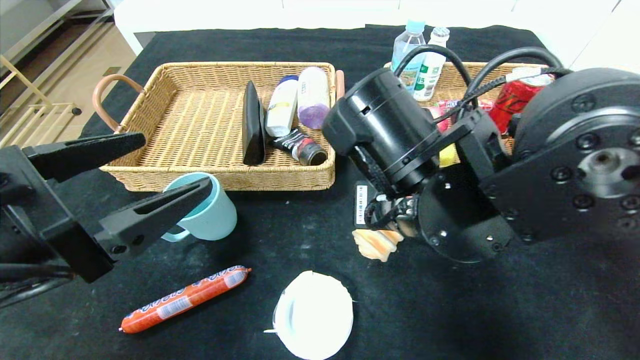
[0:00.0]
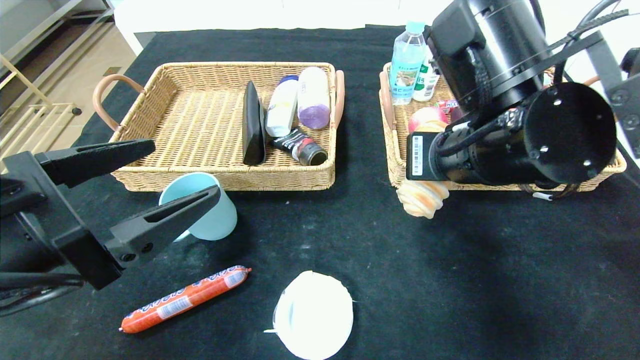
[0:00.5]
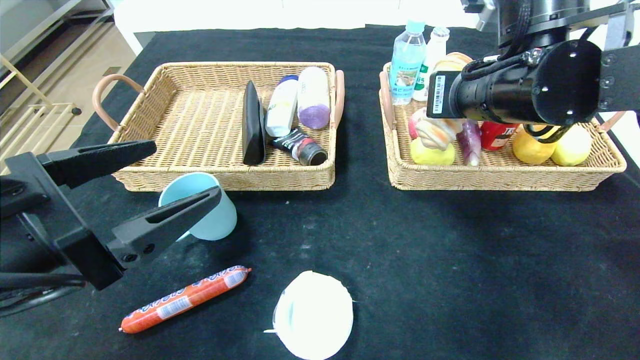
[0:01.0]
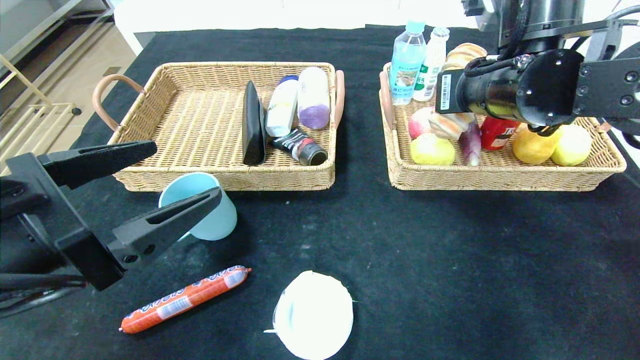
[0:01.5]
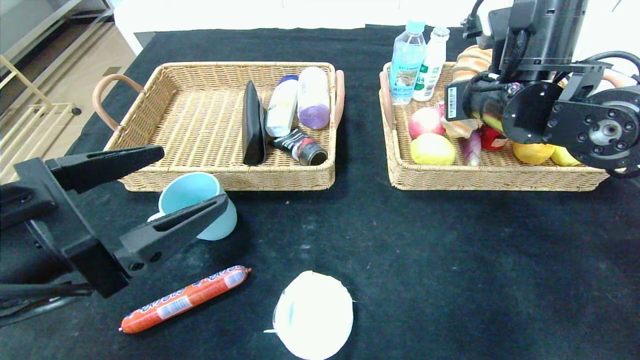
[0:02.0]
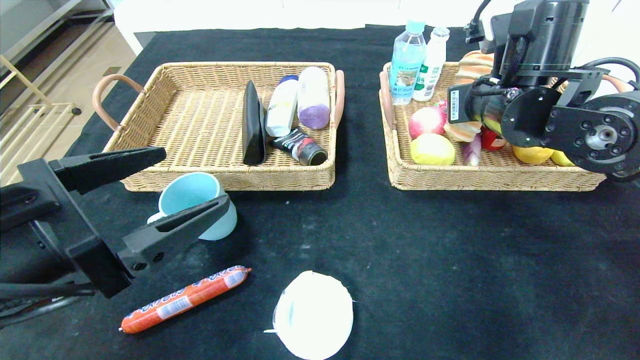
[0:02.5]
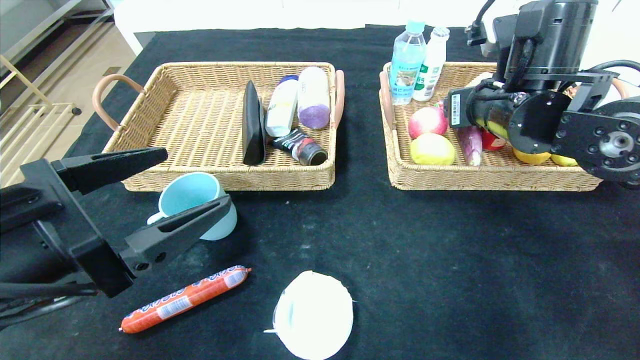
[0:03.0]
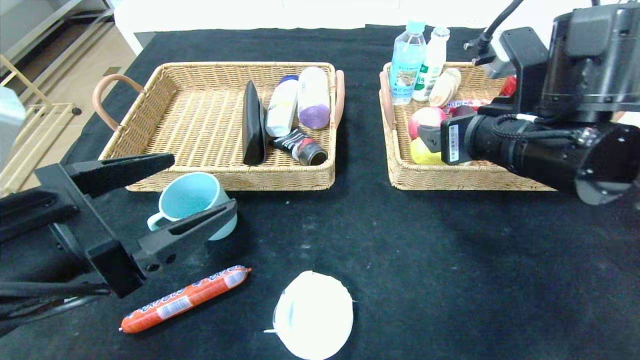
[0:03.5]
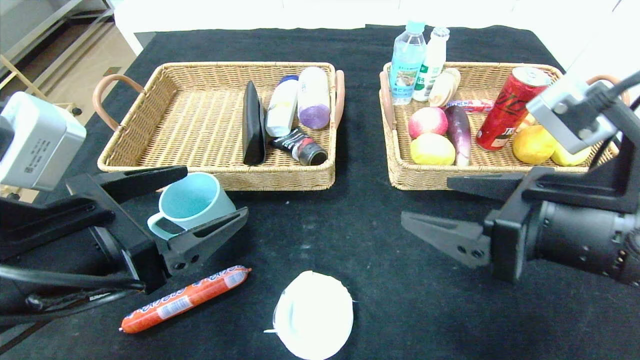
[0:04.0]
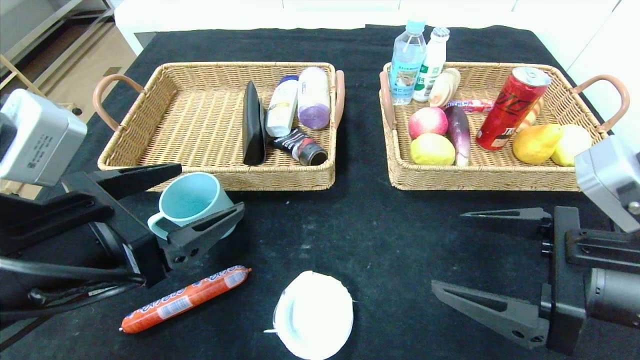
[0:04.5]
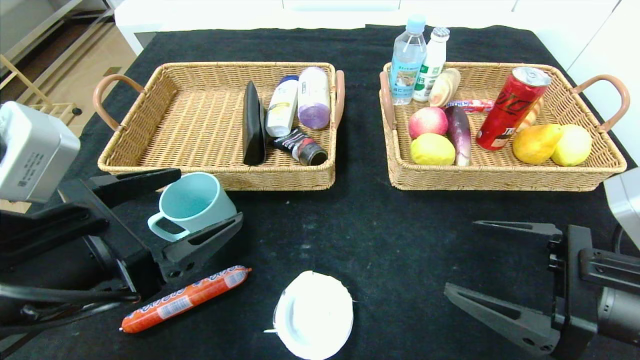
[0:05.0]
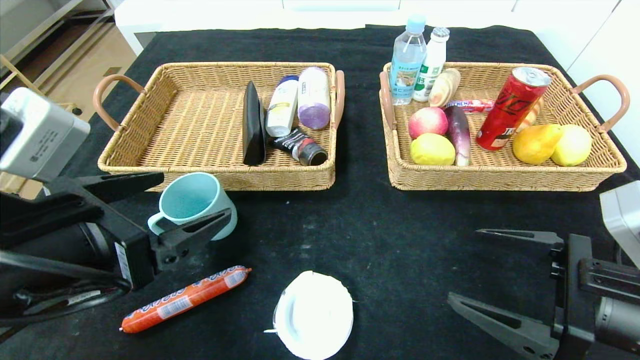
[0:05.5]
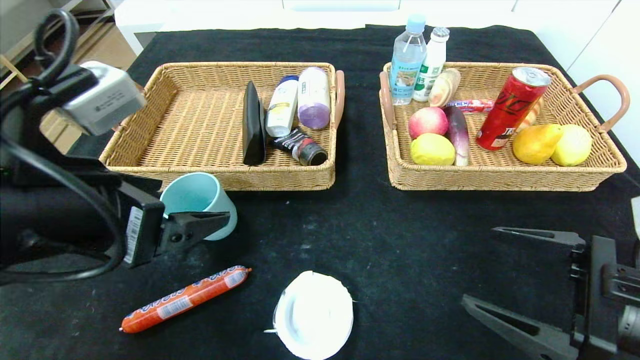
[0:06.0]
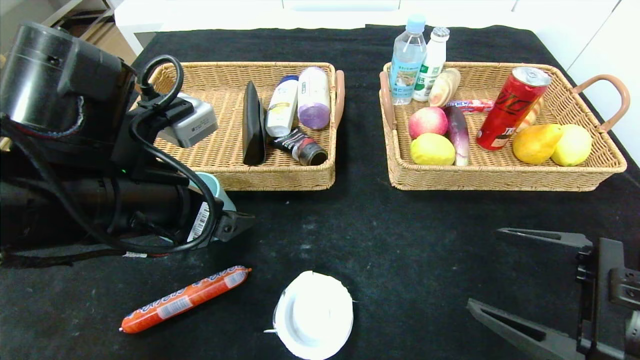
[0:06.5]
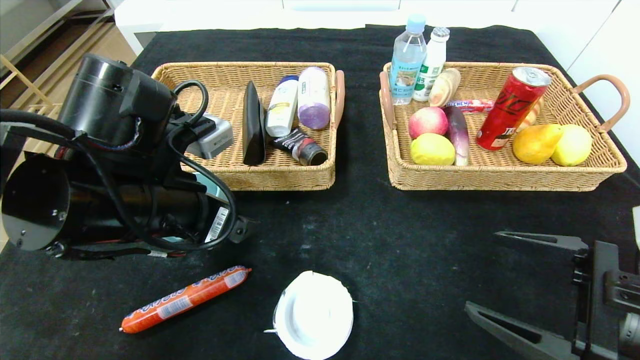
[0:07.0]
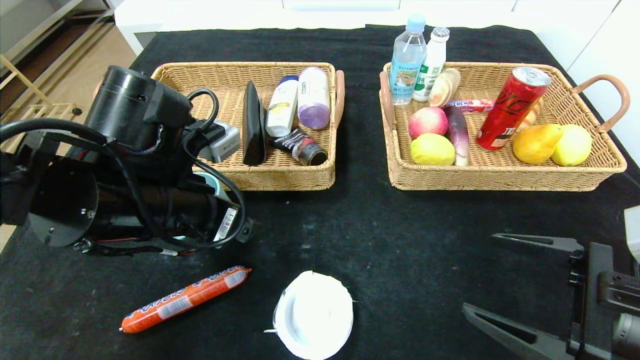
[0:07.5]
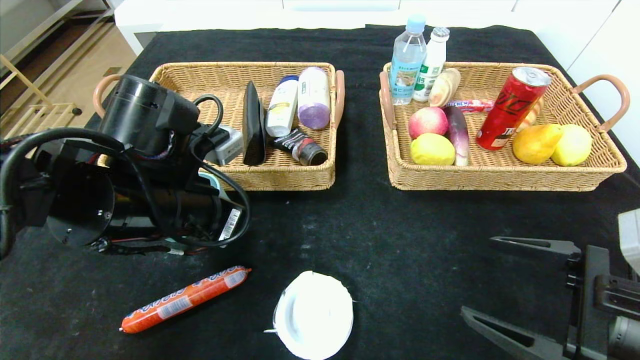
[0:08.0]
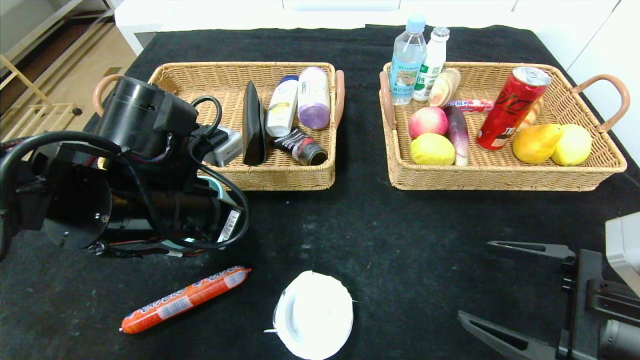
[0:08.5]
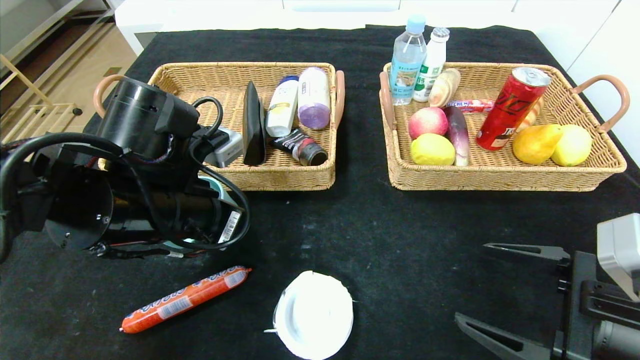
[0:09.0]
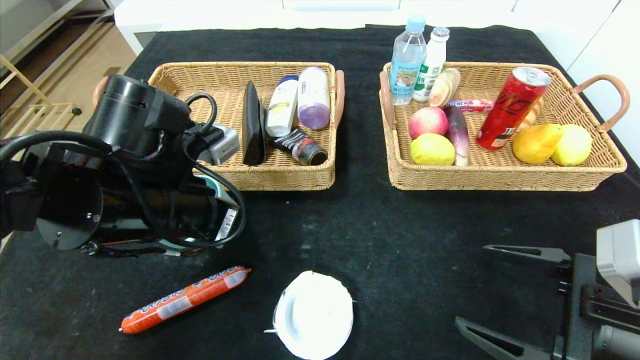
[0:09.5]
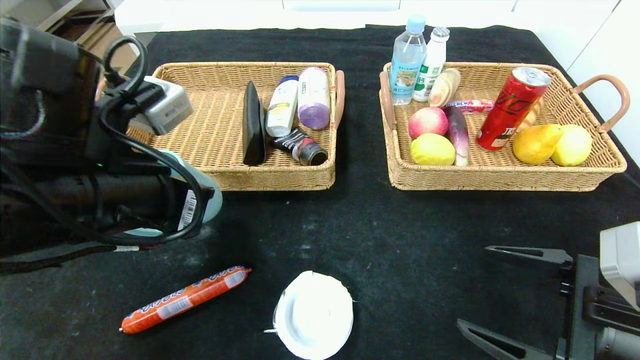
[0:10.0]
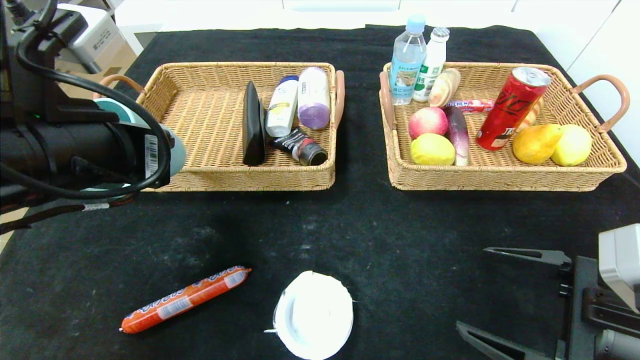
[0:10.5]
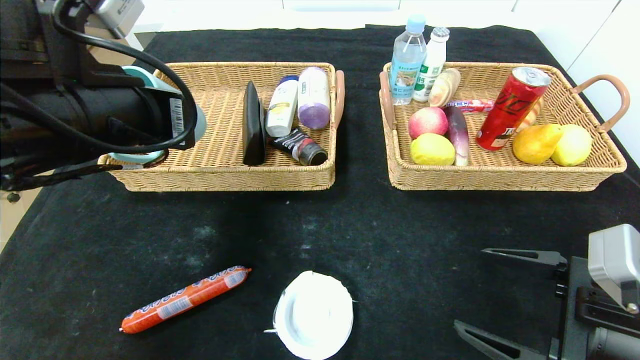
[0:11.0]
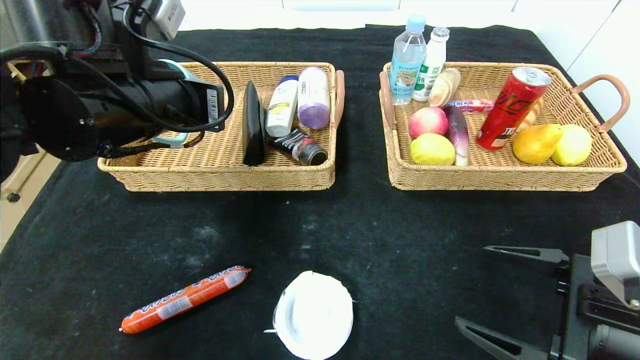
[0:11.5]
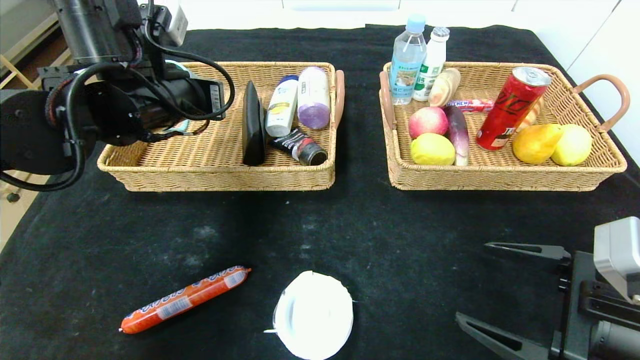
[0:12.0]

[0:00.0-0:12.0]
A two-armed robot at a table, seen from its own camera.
Step, 0:00.0 to 0:04.0: Pick up the long bread and put it in the right basket.
0:00.0 to 0:02.0: The right gripper goes approximately 20 cm to the right, forward and upward.
0:02.0 to 0:04.0: The right gripper moves backward, approximately 20 cm, and opens.
0:04.0 to 0:06.0: The right gripper is displaced downward and to the right by about 10 cm.
0:06.0 to 0:08.0: The left gripper travels forward by some 10 cm, and closes up.
0:08.0 to 0:10.0: The left gripper moves some 5 cm, and closes up.
0:10.0 to 0:12.0: The left gripper goes about 15 cm forward.

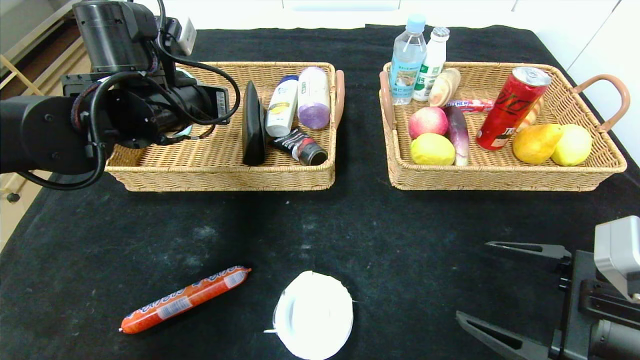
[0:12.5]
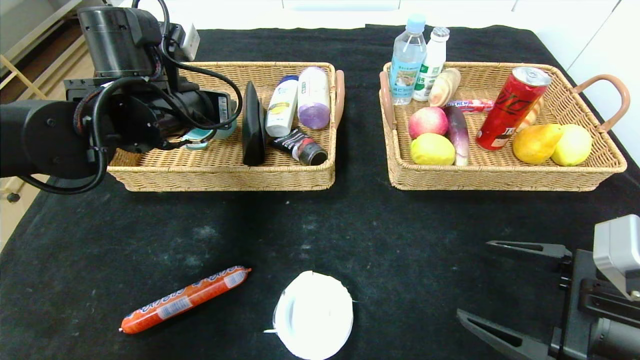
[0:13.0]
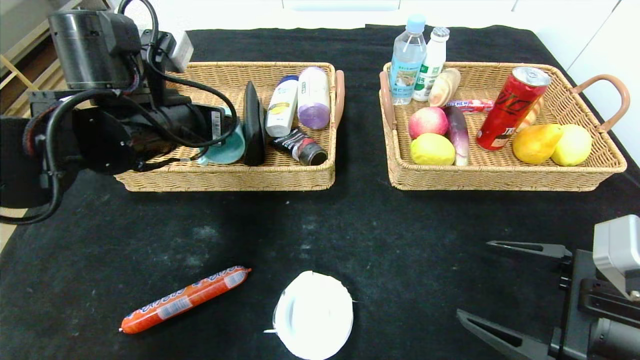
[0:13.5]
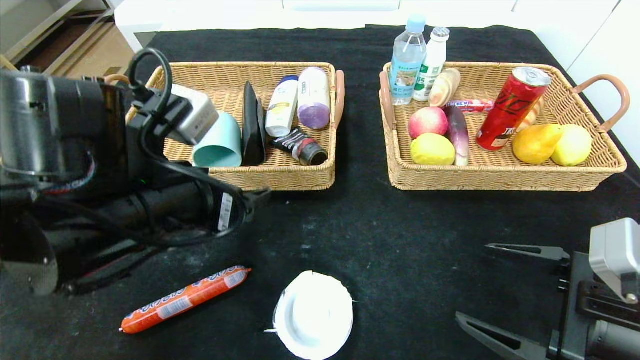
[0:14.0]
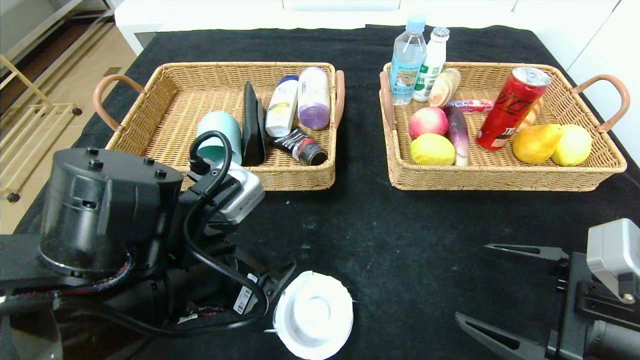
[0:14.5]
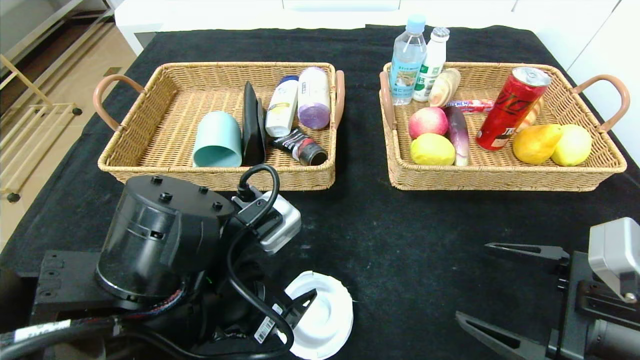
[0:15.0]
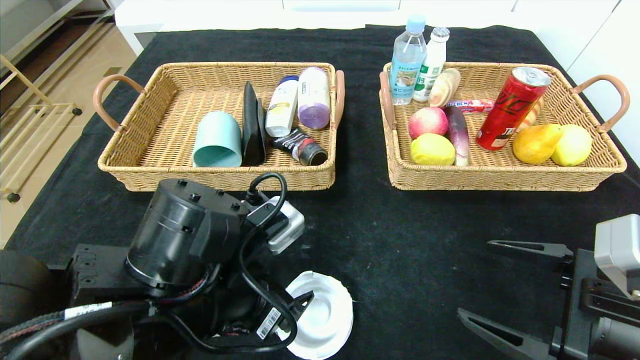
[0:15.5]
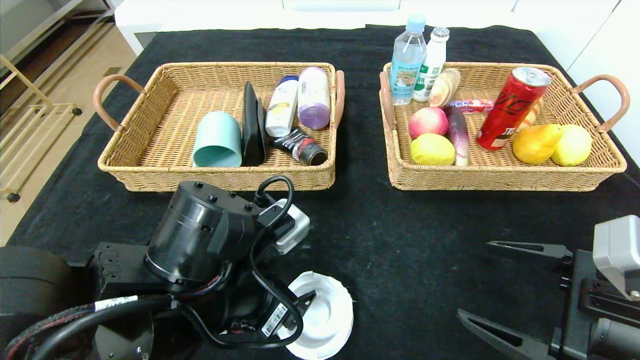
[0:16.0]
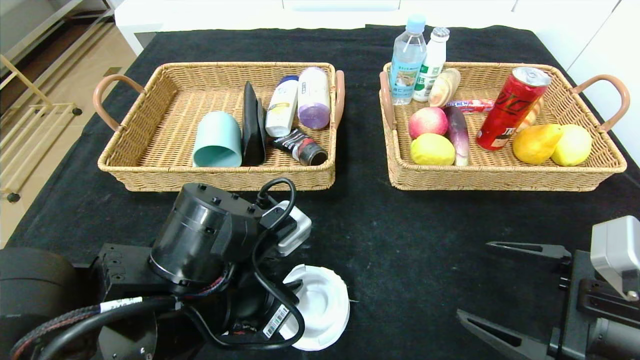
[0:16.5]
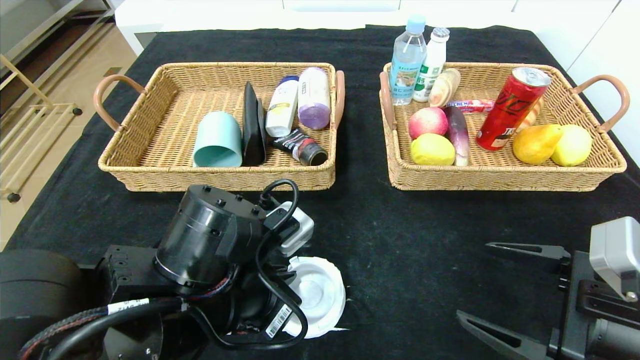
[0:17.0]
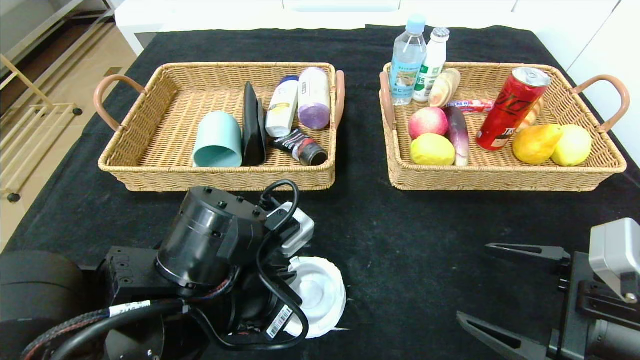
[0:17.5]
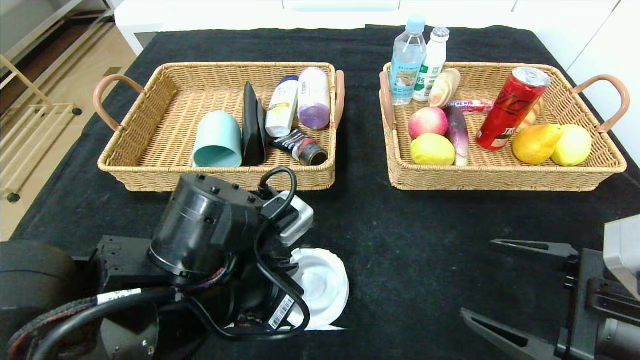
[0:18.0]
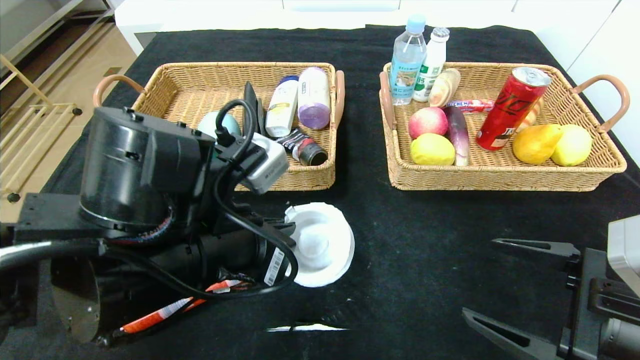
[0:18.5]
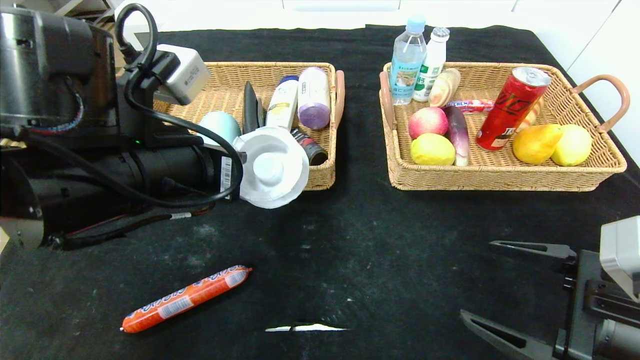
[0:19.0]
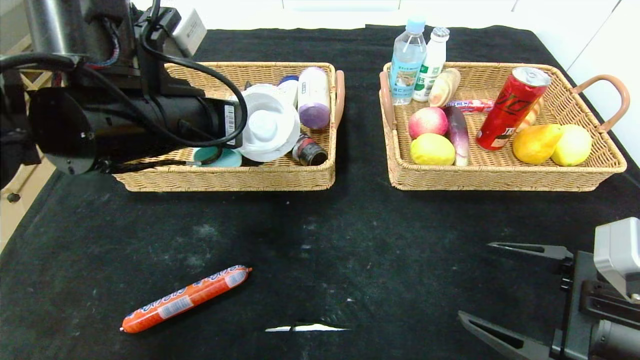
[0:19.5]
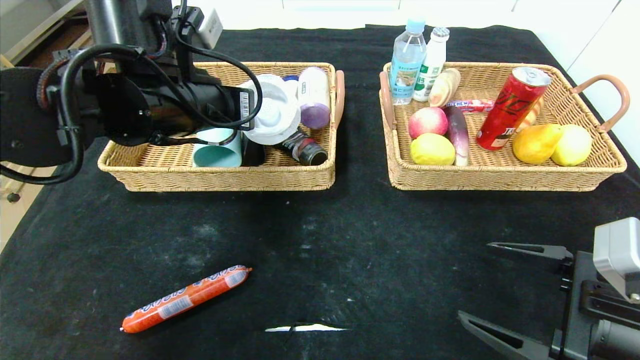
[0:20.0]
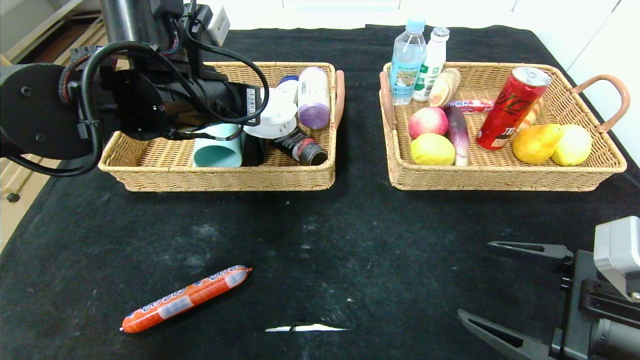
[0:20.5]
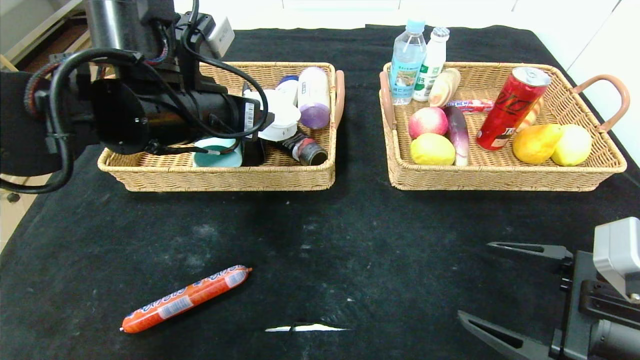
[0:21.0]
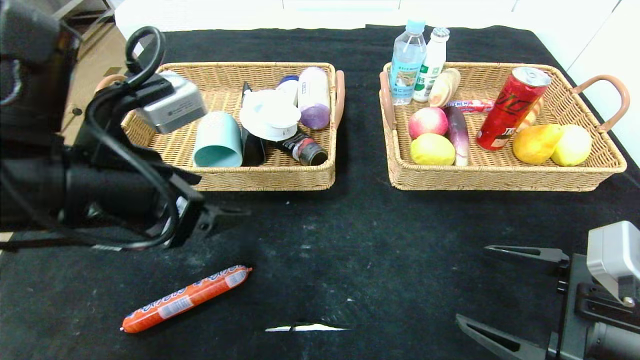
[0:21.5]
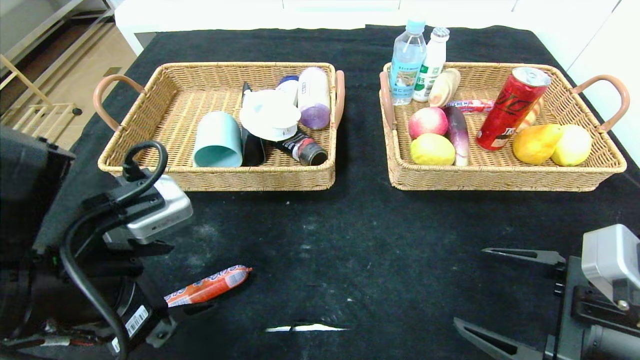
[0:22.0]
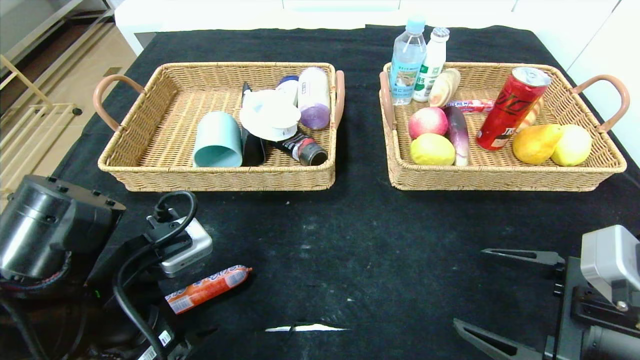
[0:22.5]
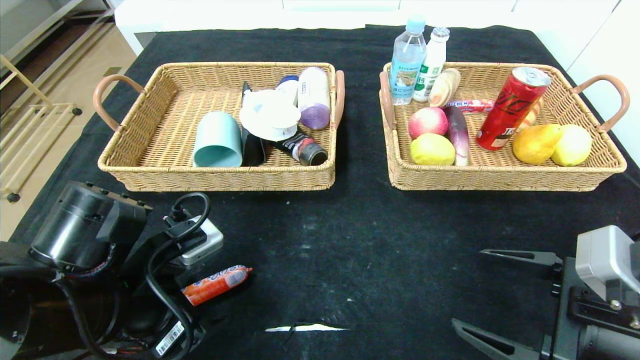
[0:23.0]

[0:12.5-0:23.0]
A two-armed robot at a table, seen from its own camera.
Step, 0:14.5 to 0:21.5: Pick up the tape and put it in the left basket.
0:12.5 to 0:14.5: The left gripper heads backward and downward, covering about 20 cm, and opens.
0:14.5 to 0:16.5: The left gripper closes its fingers.
0:16.5 to 0:19.0: The left gripper travels upward and to the left by about 10 cm, and closes.
0:19.0 to 0:21.0: The left gripper travels forward by about 5 cm, and opens up.
0:21.0 to 0:23.0: The left gripper shifts some 15 cm downward and backward.
